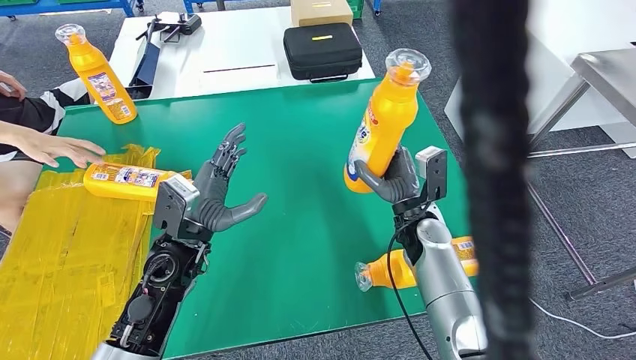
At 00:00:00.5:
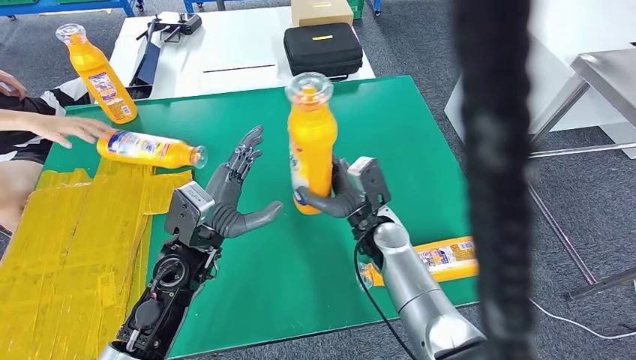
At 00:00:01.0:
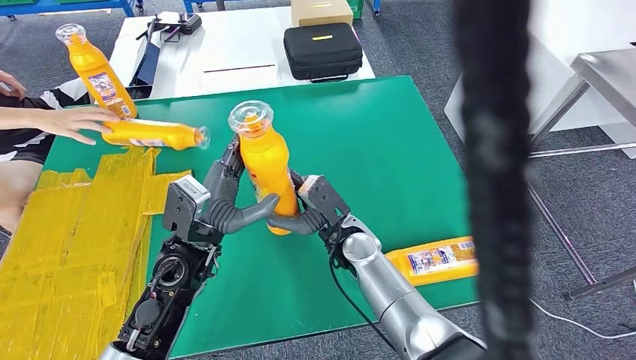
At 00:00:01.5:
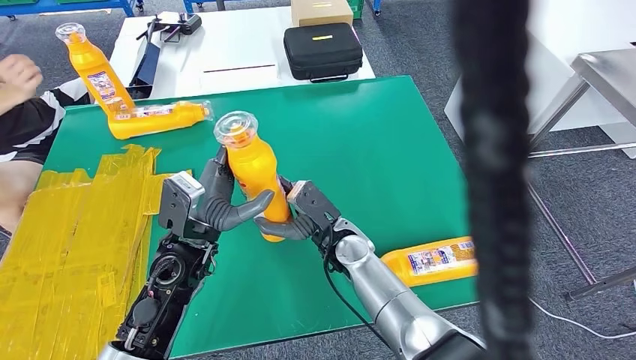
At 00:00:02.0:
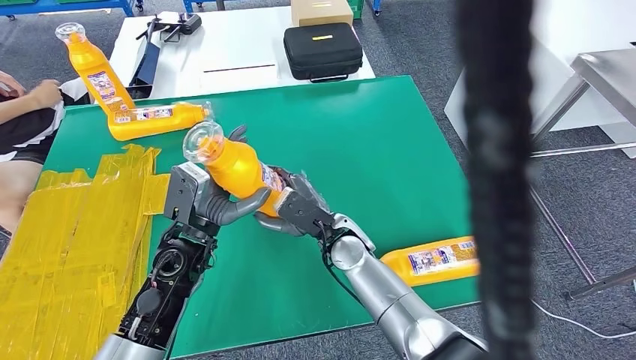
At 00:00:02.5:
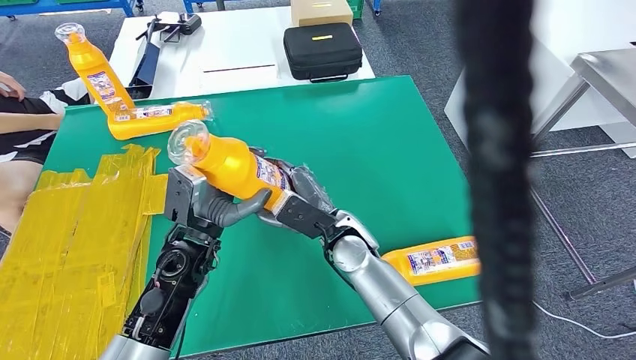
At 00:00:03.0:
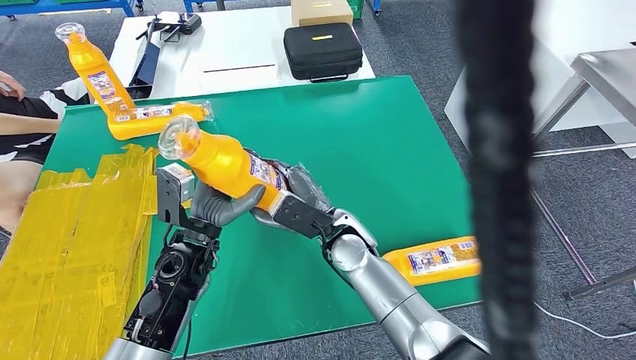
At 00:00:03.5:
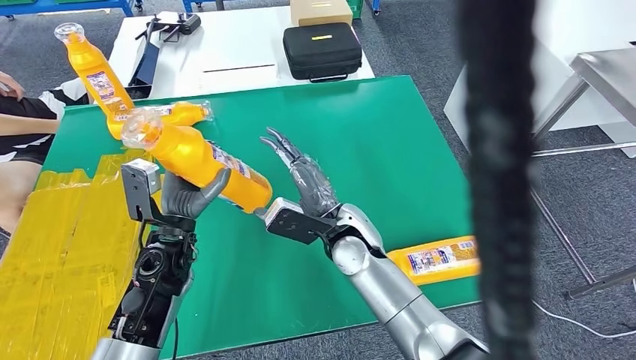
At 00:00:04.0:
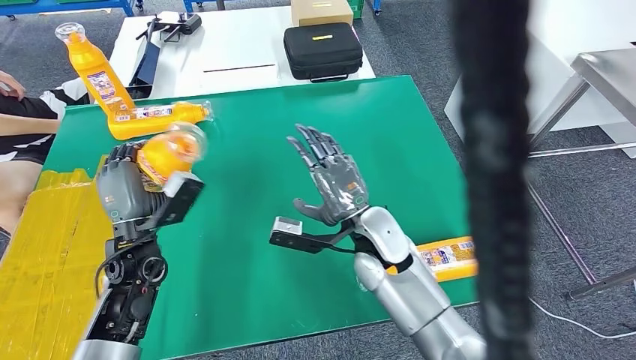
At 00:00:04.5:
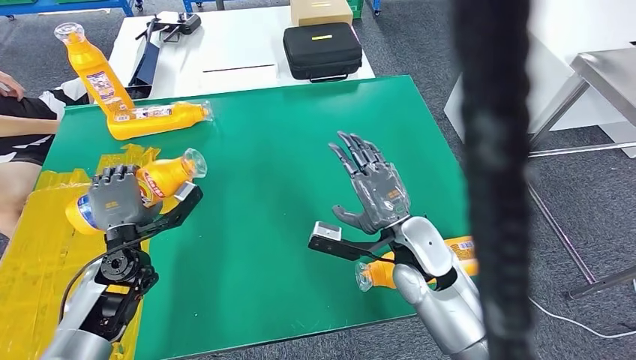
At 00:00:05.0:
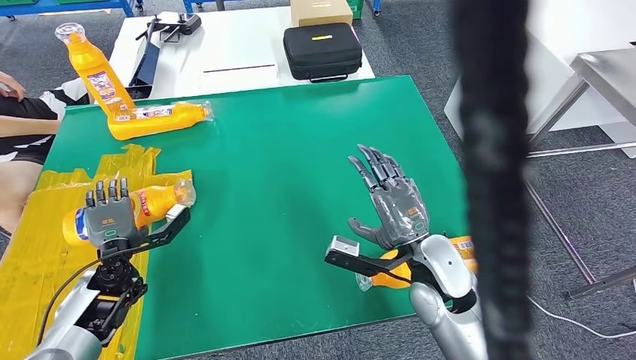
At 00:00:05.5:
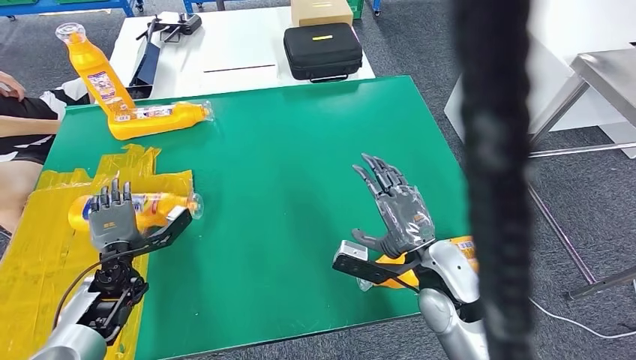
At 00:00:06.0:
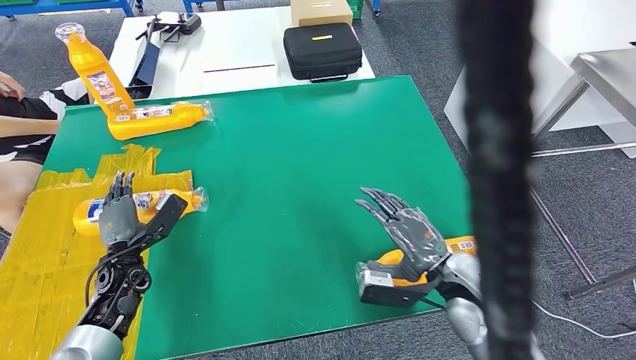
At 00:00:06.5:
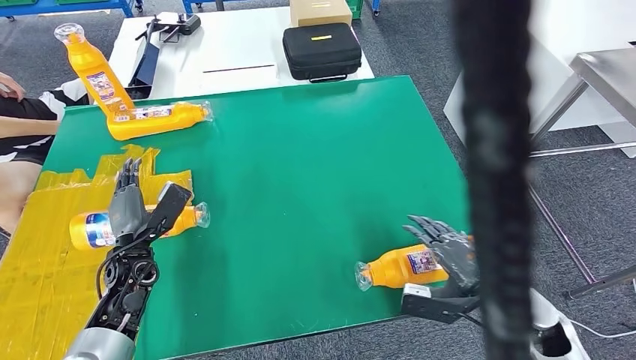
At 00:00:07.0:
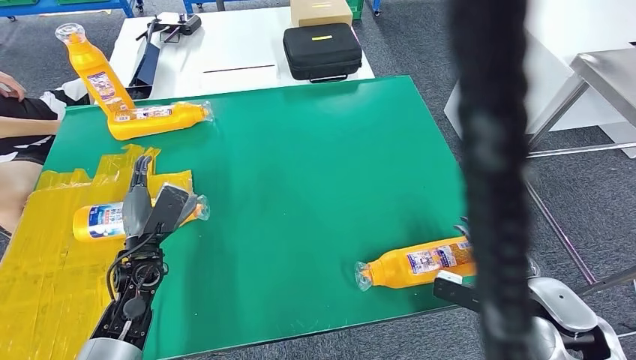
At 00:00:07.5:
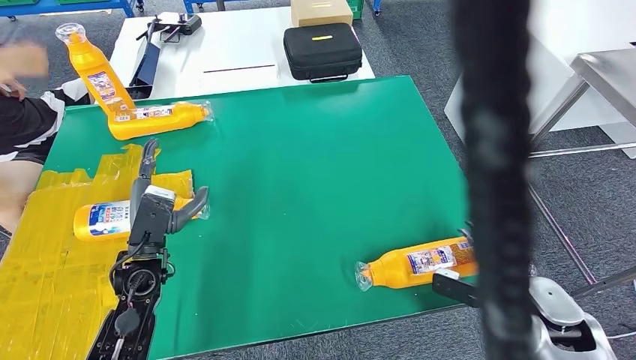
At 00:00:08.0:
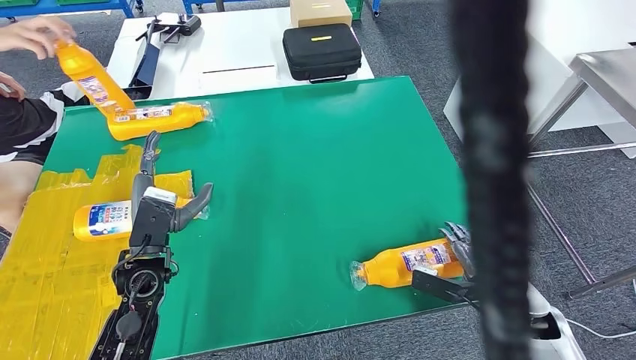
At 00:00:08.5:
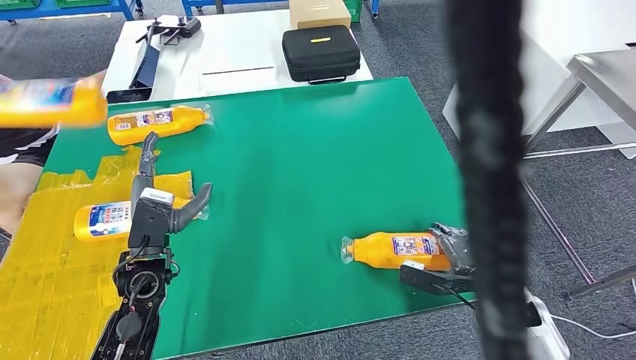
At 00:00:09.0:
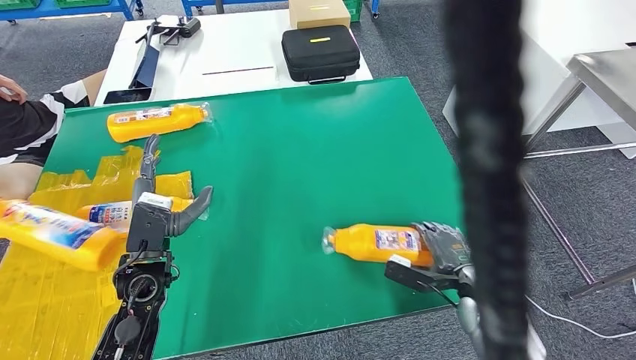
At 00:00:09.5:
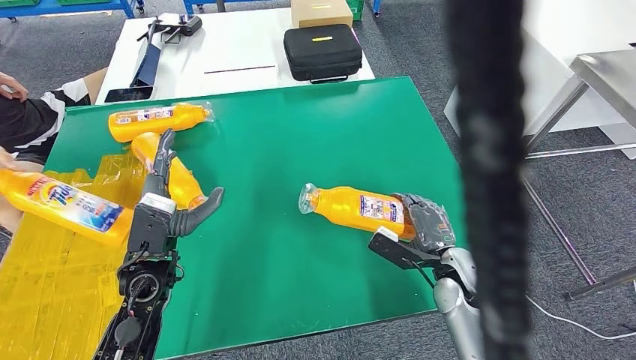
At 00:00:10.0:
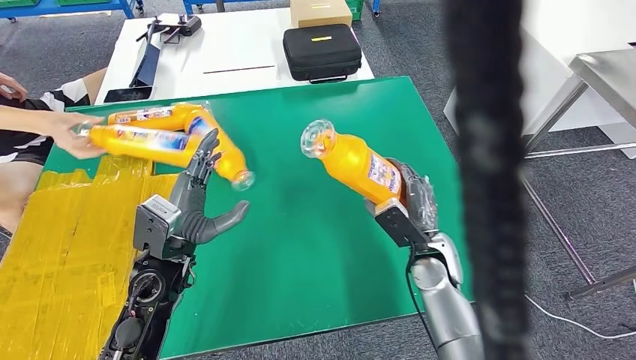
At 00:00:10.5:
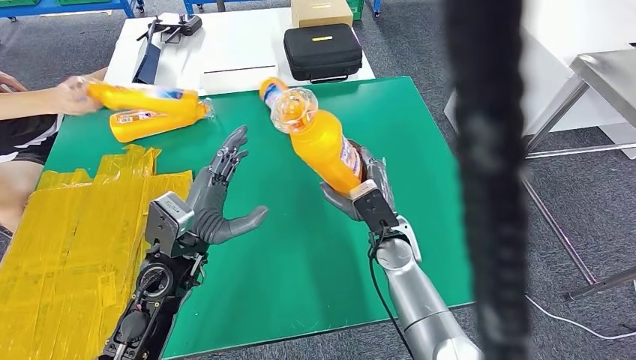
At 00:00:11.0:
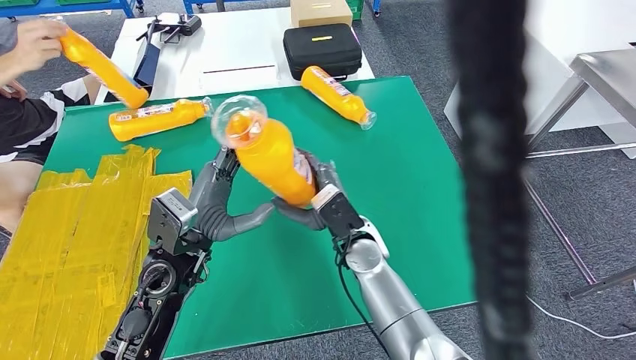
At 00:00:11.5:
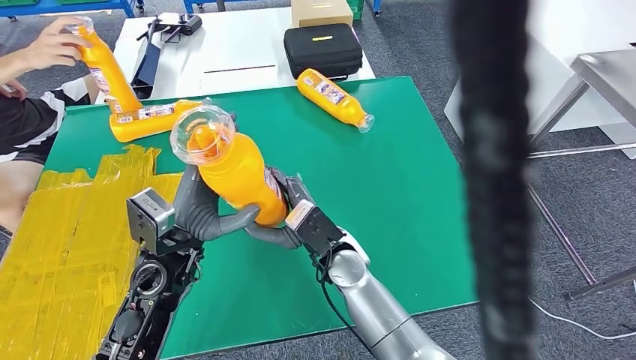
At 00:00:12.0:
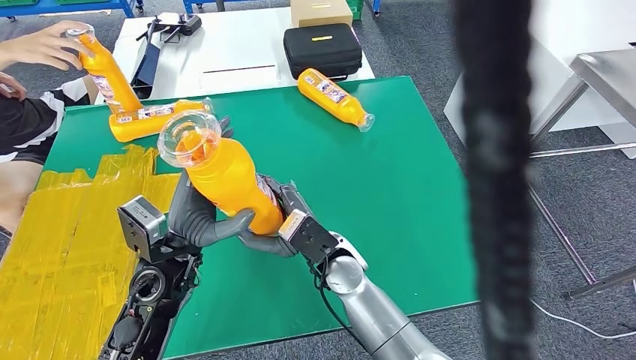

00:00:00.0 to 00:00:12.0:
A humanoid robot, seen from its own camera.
Step, 00:00:00.0 to 00:00:05.5: Flip the fast-moving consumer goods bottle to the front side.
Step, 00:00:06.0 to 00:00:10.0: Pick up the fast-moving consumer goods bottle from the table.
00:00:04.0 to 00:00:06.0: The left hand goes approximately 10 cm downward and to the left. The right hand is displaced to the right and backward by approximately 15 cm.
00:00:06.0 to 00:00:08.0: The right hand shifts approximately 15 cm to the right and downward. Meanwhile the left hand shifts approximately 10 cm to the right and upward.

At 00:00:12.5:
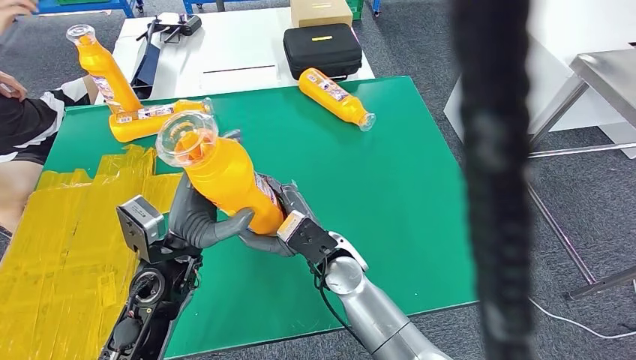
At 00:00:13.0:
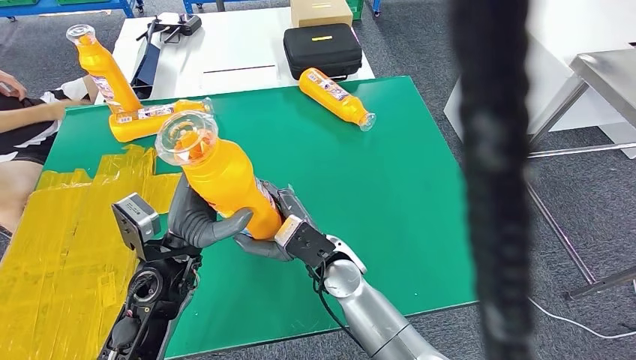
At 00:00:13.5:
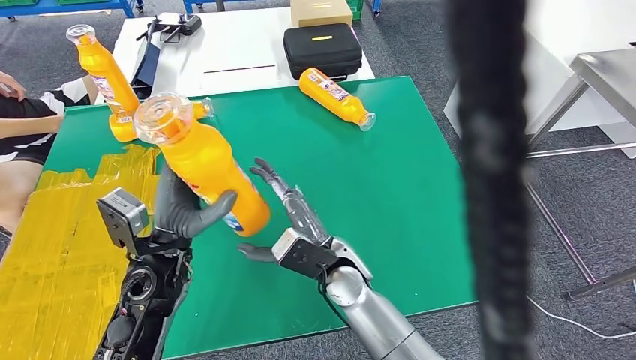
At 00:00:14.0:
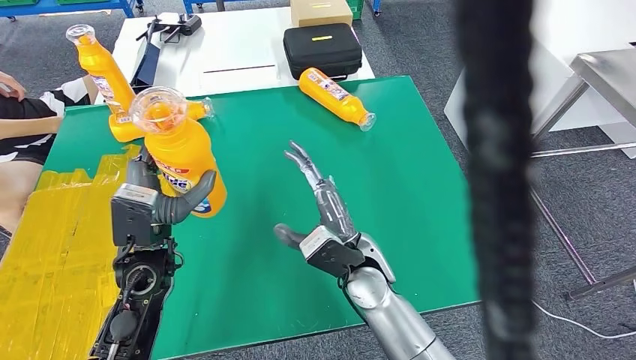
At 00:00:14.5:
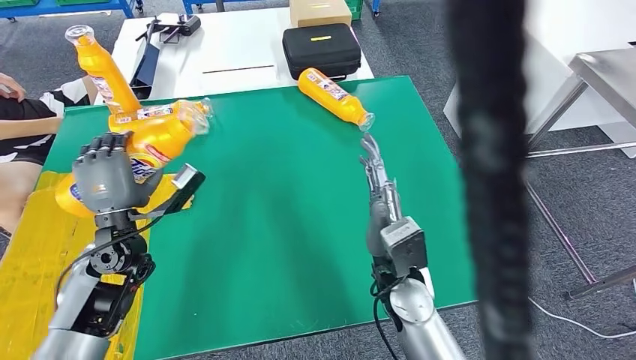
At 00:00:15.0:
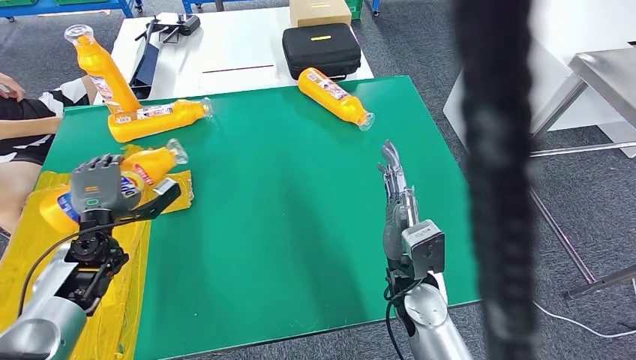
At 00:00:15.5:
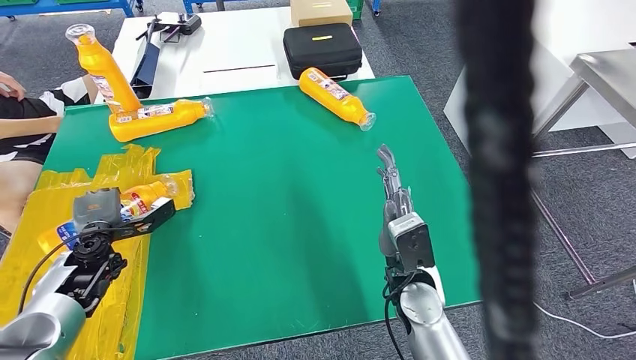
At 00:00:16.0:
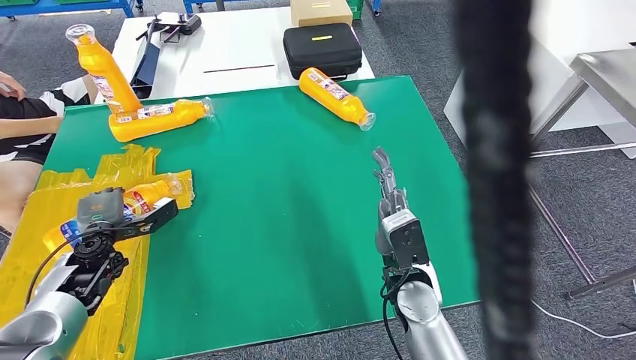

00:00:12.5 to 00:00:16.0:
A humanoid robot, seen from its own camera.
Step, 00:00:12.5 to 00:00:16.0: Flip the fast-moving consumer goods bottle to the front side.
00:00:14.5 to 00:00:16.0: The left hand goes some 15 cm to the left and downward.
